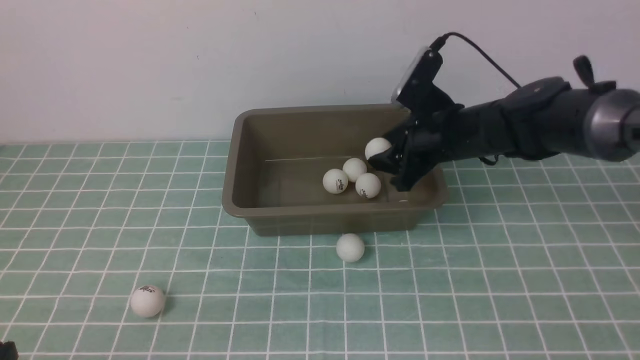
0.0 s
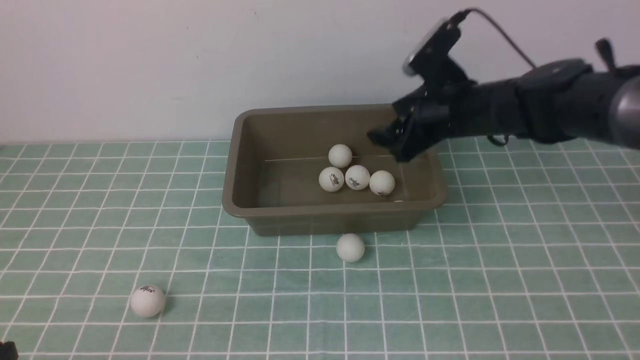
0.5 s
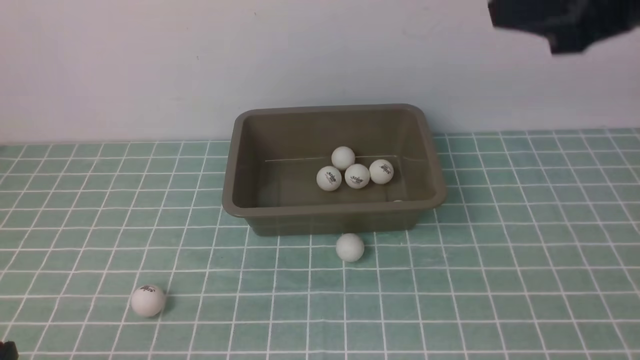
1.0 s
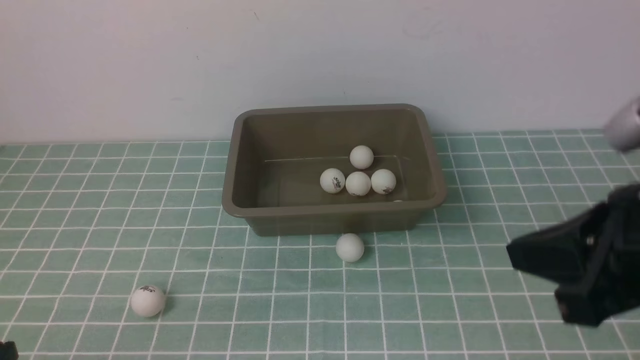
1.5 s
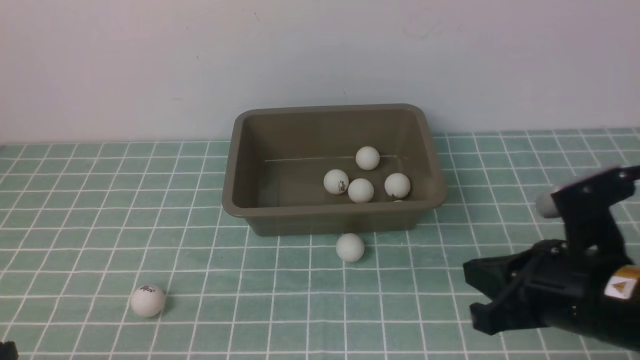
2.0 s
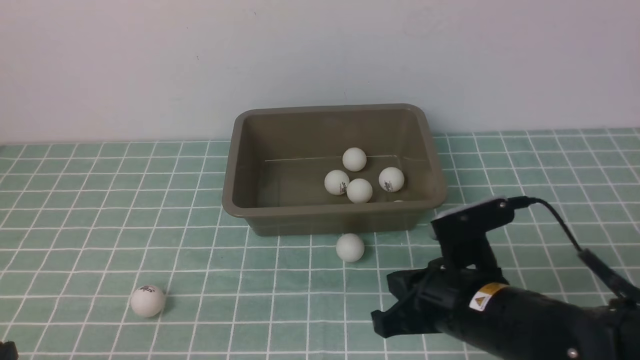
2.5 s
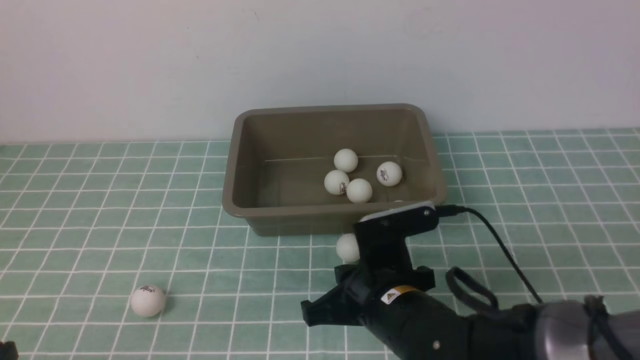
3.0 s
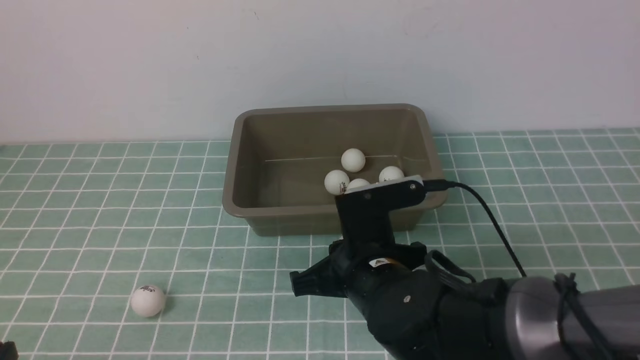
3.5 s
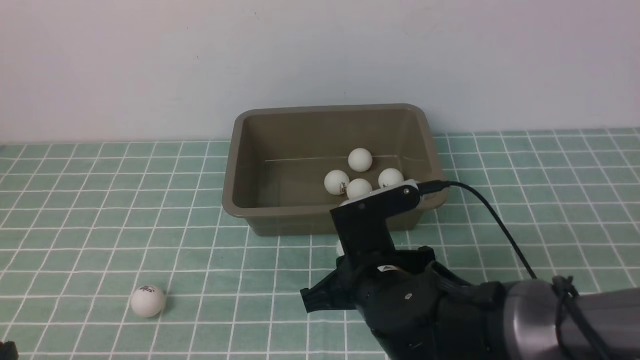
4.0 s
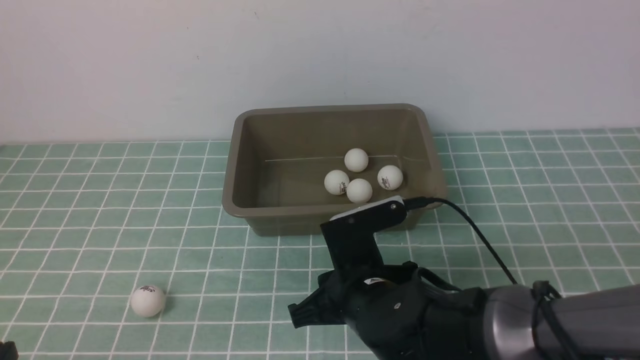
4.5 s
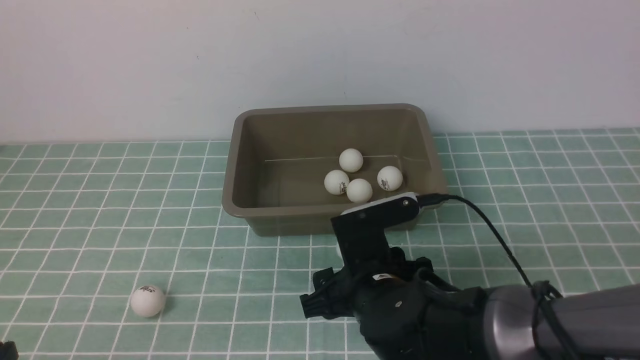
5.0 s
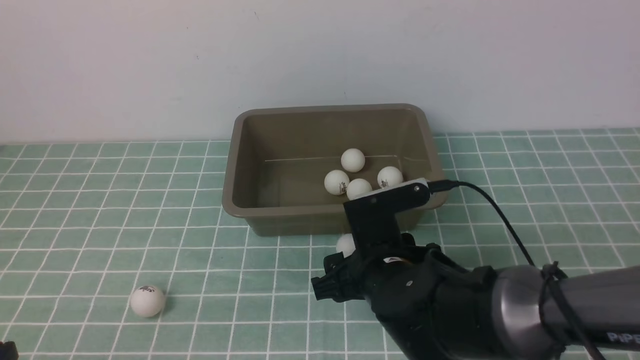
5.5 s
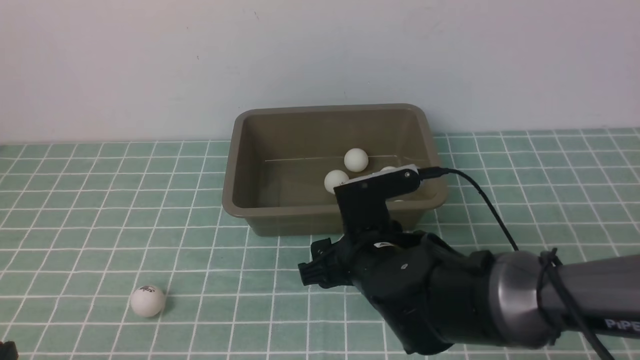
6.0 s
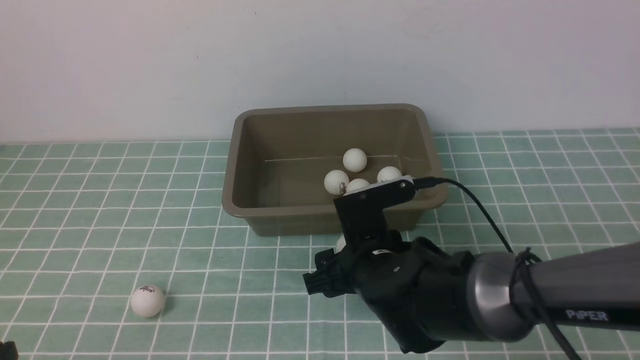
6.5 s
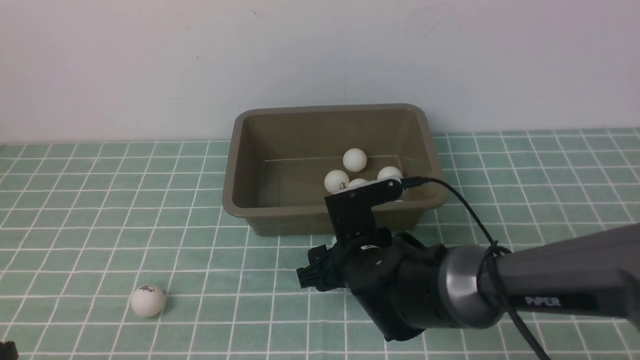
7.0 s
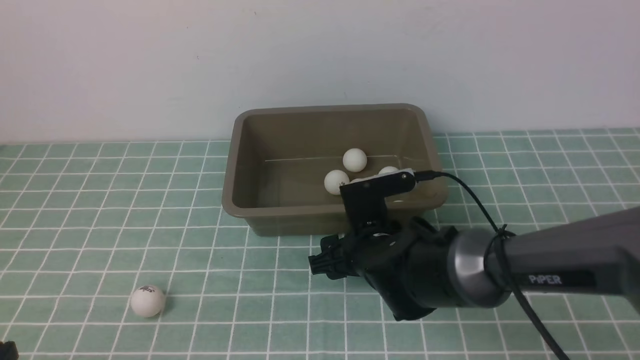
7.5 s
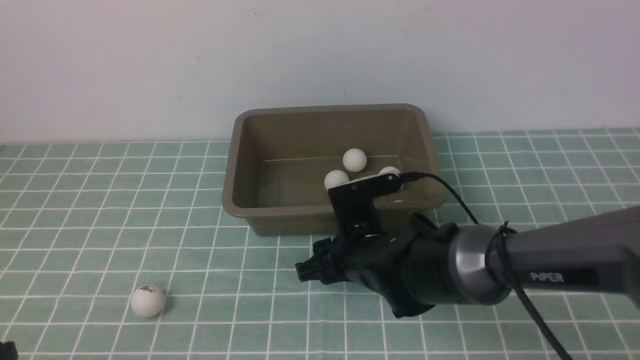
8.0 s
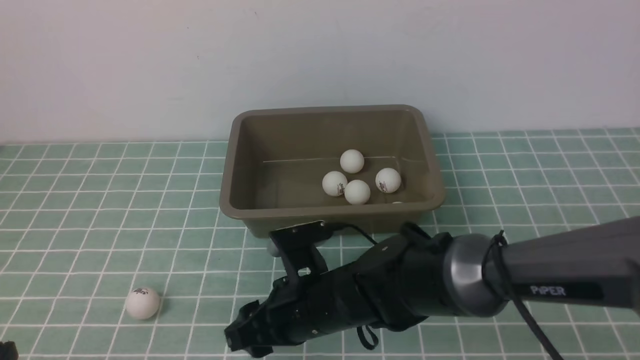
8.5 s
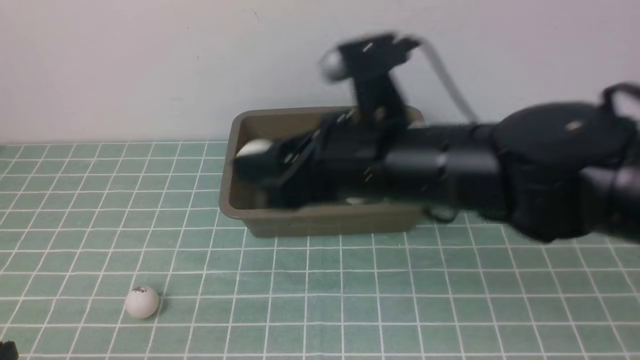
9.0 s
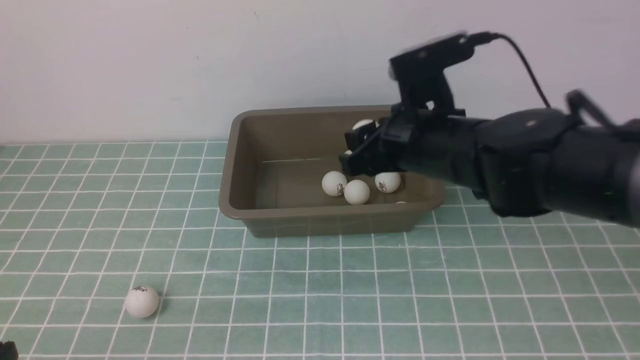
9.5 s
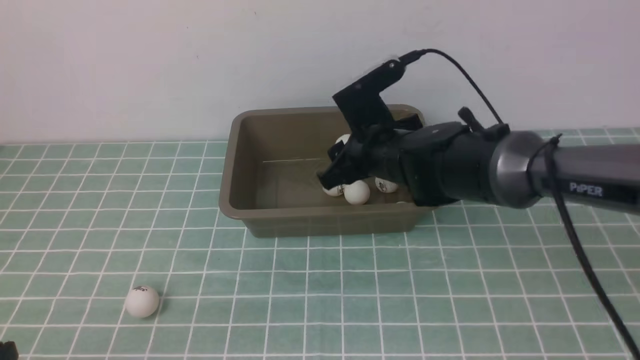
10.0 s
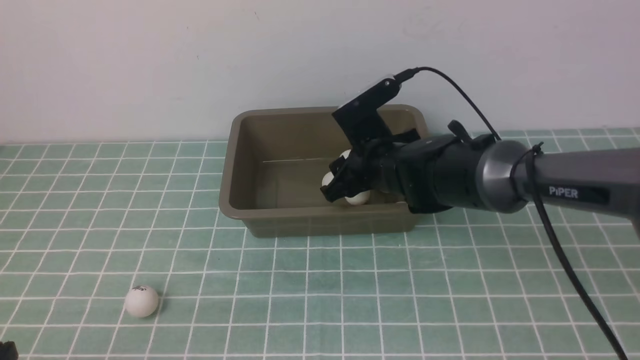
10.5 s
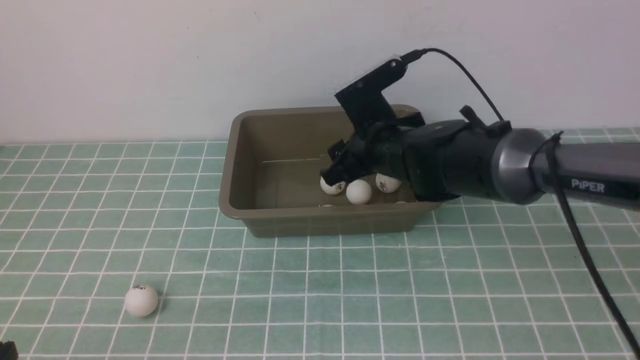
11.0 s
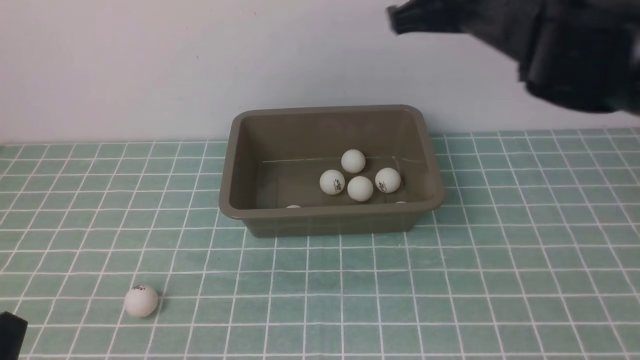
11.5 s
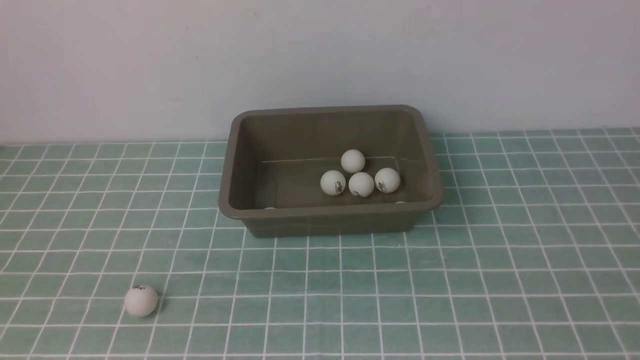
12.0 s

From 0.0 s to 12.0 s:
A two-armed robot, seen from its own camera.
Step, from 0.5 s to 8.0 s: use the right arm to clamp the table tennis ball closest to it.
Step, from 8.5 s to 11.0 s: use the right arm to put the table tennis ball into the box.
From 0.0 s to 2.0 s: The right gripper travels backward by approximately 25 cm, and closes up.
From 2.0 s to 4.0 s: The right gripper is displaced to the left and downward by approximately 20 cm.
From 4.0 s to 6.0 s: The right gripper opens up.
From 6.0 s to 8.0 s: The right gripper ends up roughly 5 cm from where it was.
From 8.0 s to 10.0 s: The right gripper heads forward and upward, covering approximately 10 cm.
From 10.0 s to 12.0 s: The left gripper travels upward by about 5 cm; the right gripper heads backward, to the right and upward, covering approximately 40 cm, and closes up.

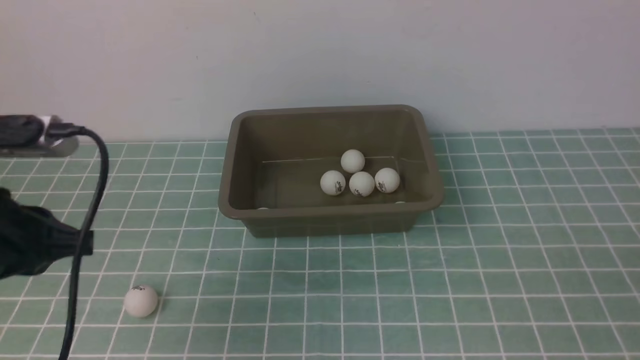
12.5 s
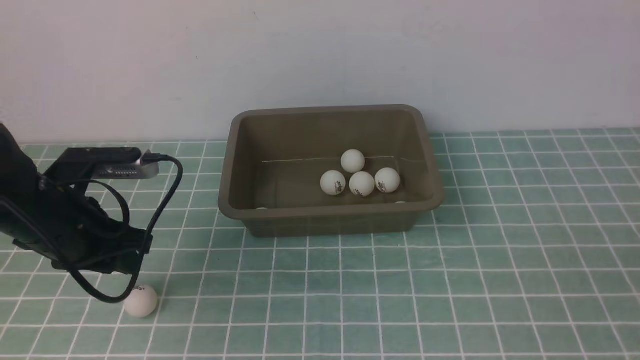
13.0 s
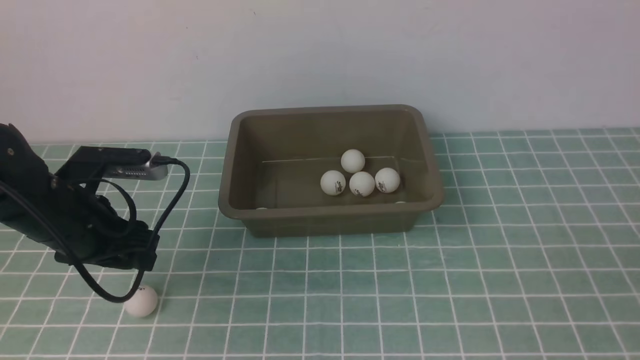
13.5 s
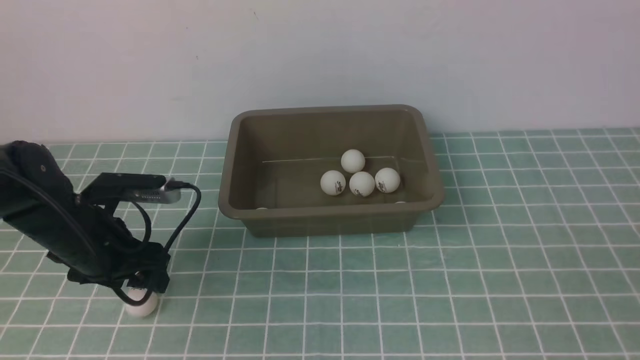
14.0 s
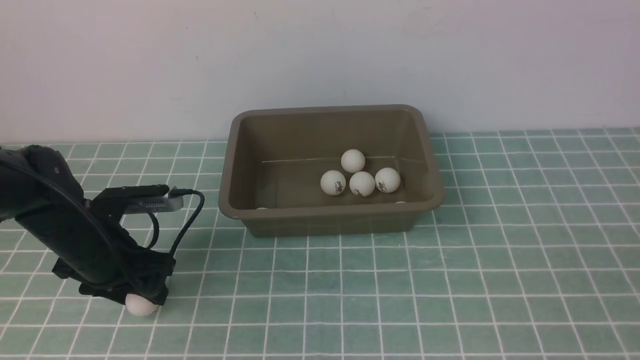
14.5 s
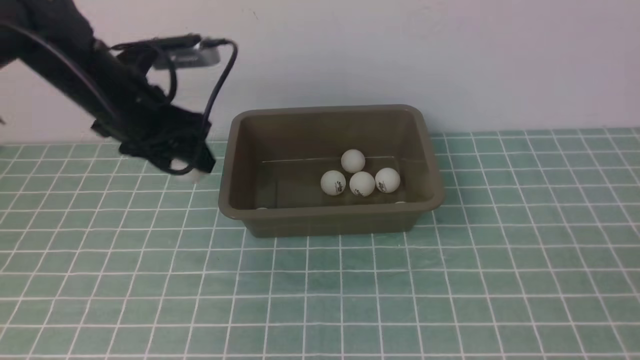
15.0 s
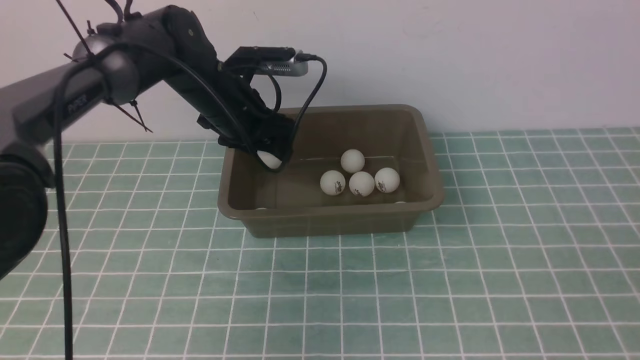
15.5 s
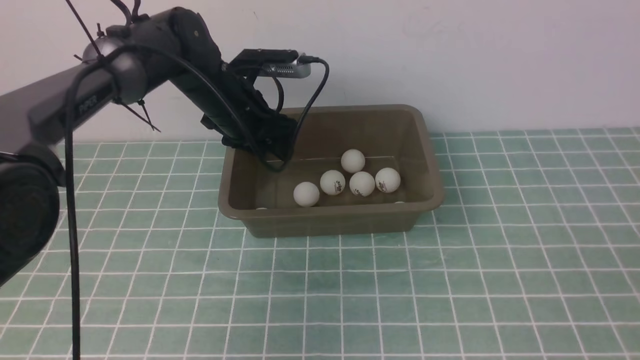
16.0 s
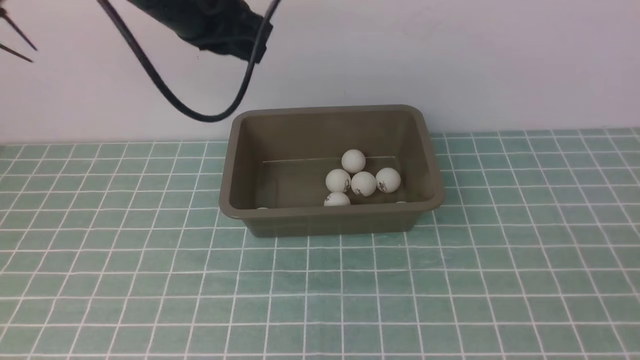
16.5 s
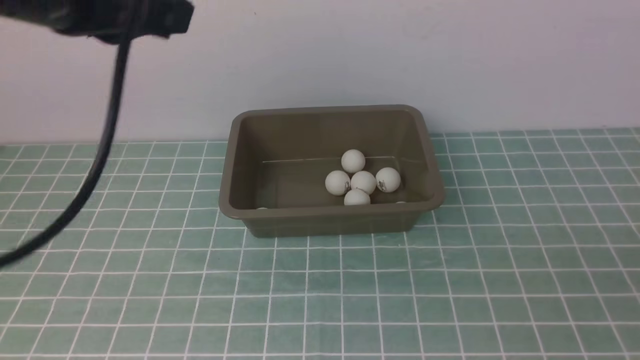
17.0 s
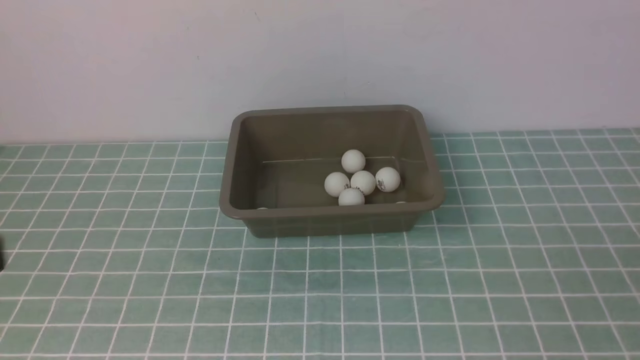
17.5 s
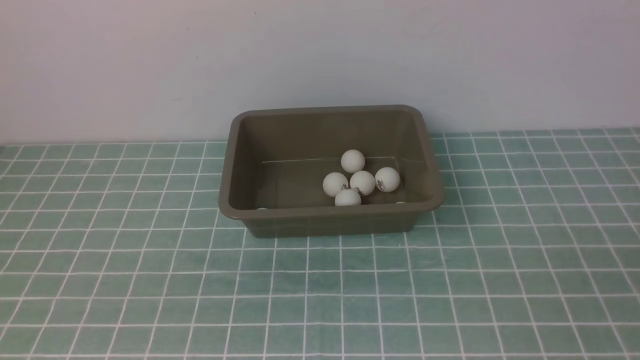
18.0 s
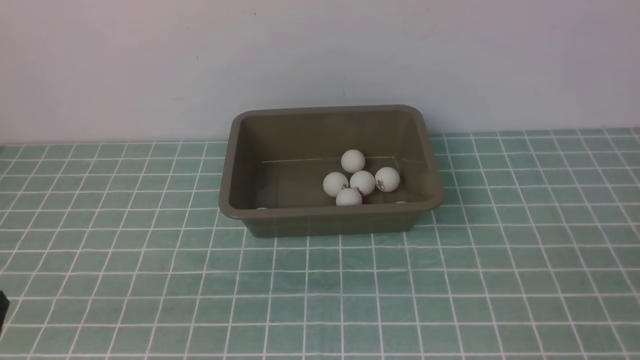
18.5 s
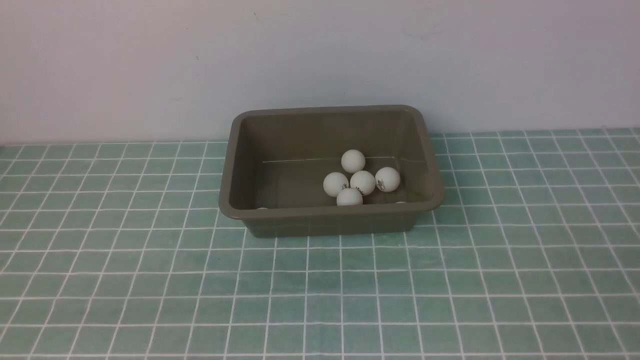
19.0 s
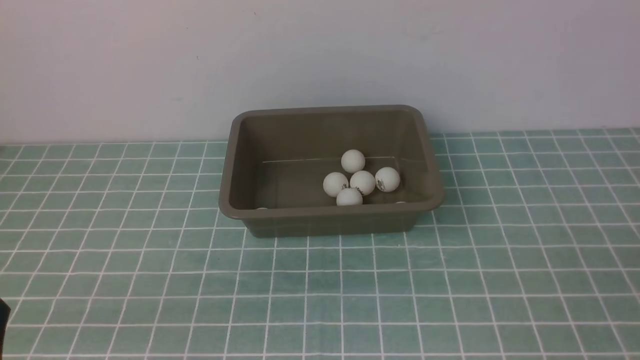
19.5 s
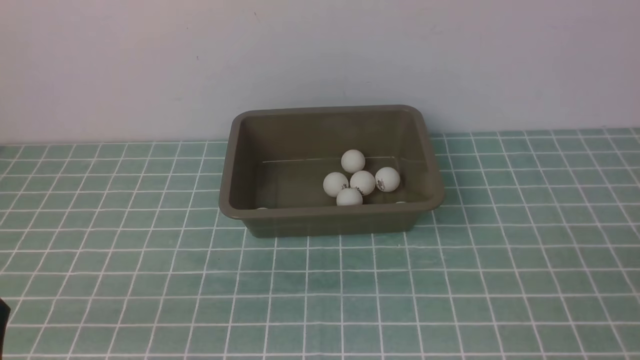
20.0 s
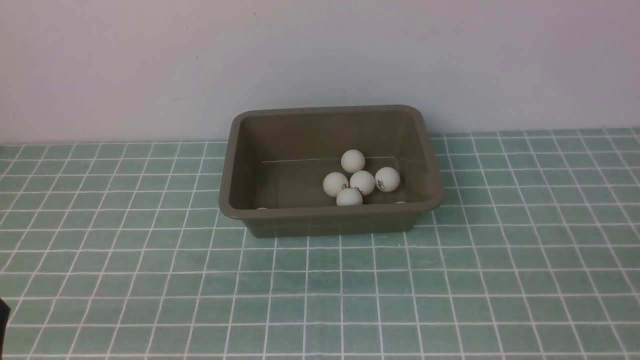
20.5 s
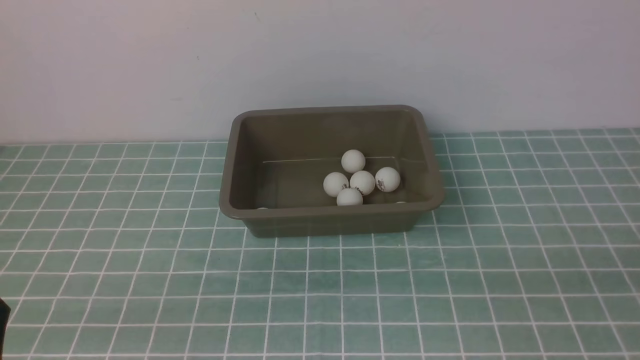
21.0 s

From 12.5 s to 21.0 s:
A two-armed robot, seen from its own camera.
Step, from 12.5 s to 14.5 s: use the left arm to clamp the table tennis ball closest to it.
Step, from 15.0 s to 15.5 s: use the left arm to put the table tennis ball into the box.
From 12.5 s to 14.5 s: The left gripper shifts approximately 20 cm forward and downward, and opens.
From 14.5 s to 16.5 s: The left gripper goes up and down, roughly 20 cm each way, reversing 2 times, and closes.
From 16.5 s to 19.0 s: The left gripper goes about 35 cm backward and downward.
